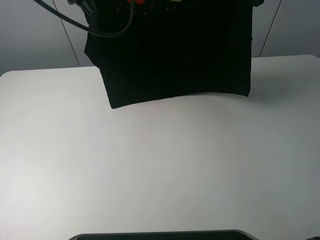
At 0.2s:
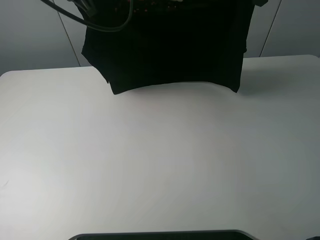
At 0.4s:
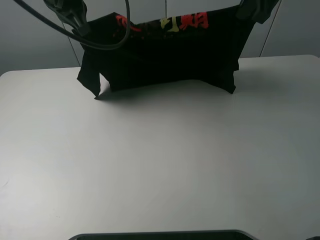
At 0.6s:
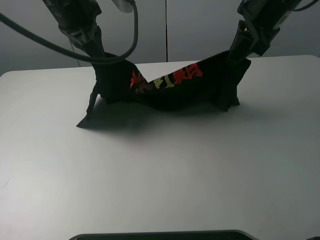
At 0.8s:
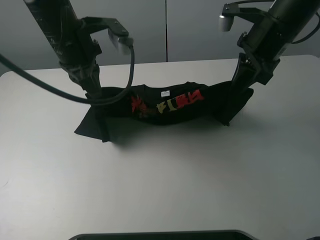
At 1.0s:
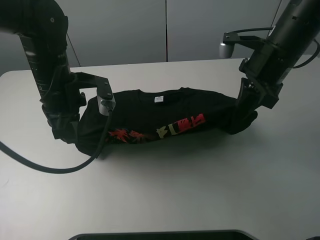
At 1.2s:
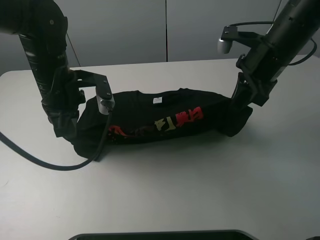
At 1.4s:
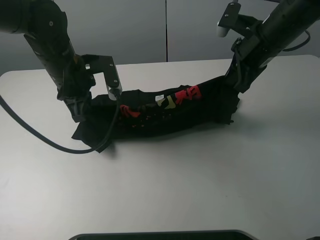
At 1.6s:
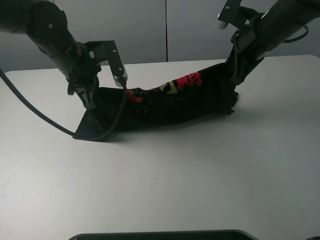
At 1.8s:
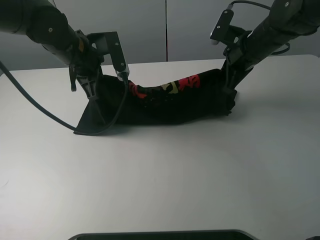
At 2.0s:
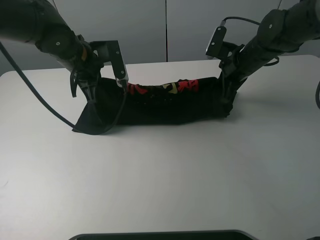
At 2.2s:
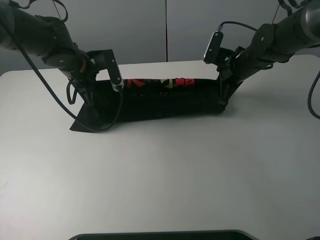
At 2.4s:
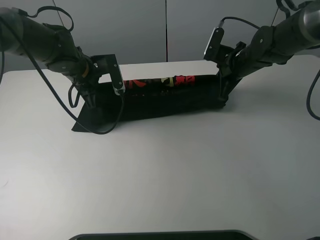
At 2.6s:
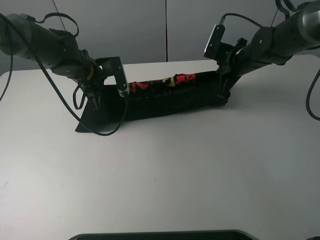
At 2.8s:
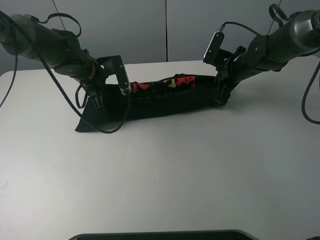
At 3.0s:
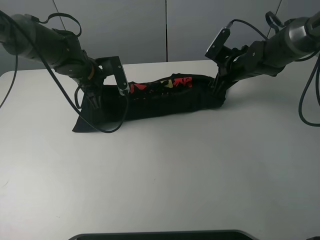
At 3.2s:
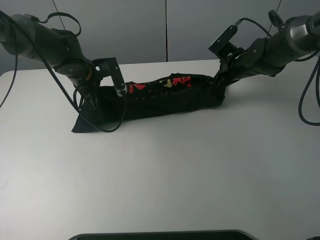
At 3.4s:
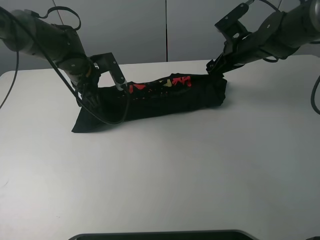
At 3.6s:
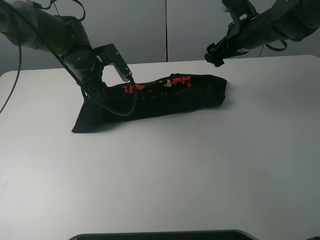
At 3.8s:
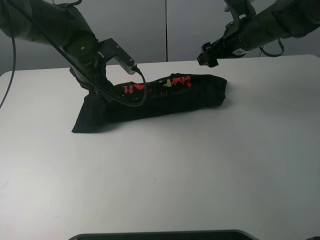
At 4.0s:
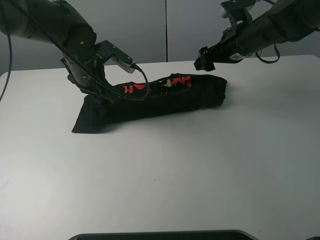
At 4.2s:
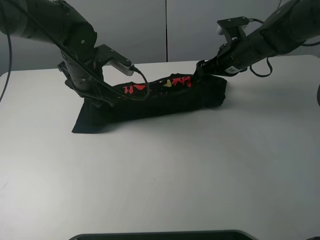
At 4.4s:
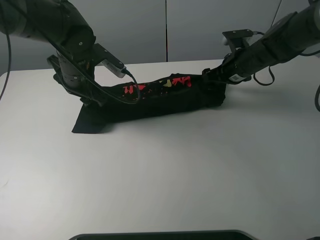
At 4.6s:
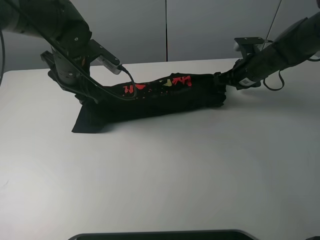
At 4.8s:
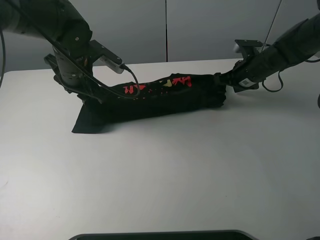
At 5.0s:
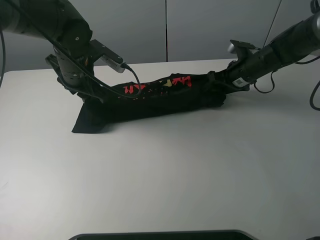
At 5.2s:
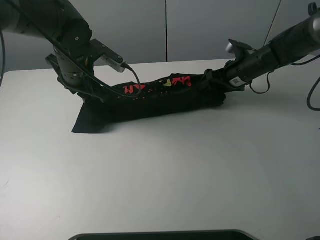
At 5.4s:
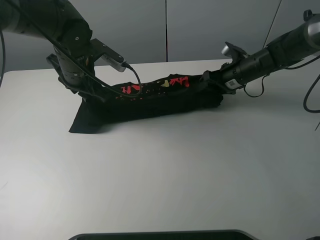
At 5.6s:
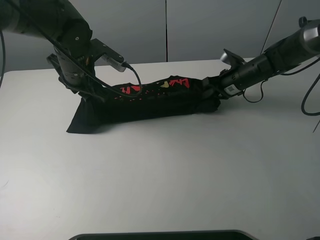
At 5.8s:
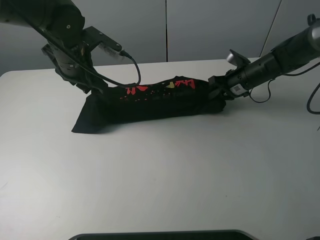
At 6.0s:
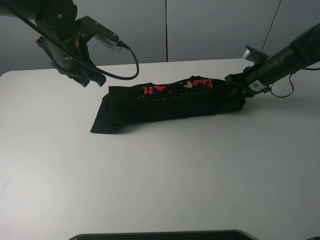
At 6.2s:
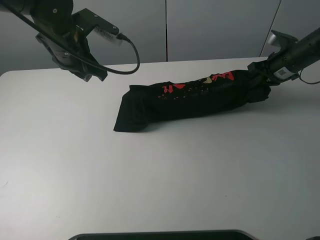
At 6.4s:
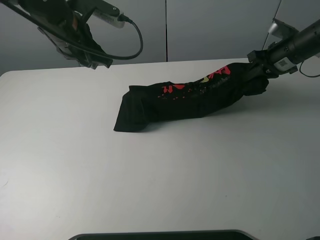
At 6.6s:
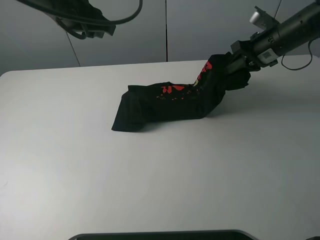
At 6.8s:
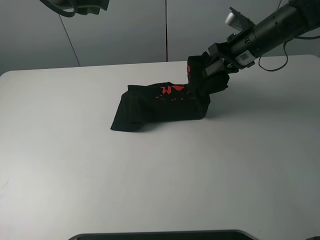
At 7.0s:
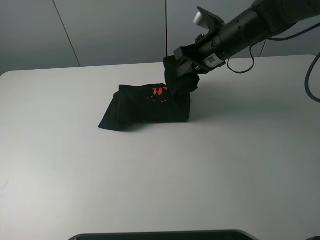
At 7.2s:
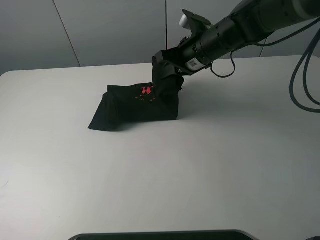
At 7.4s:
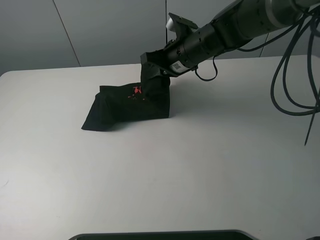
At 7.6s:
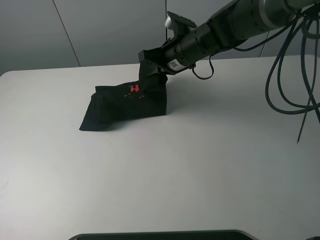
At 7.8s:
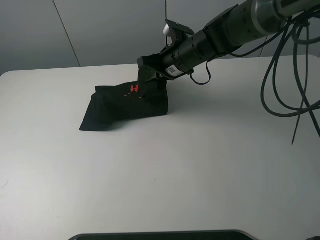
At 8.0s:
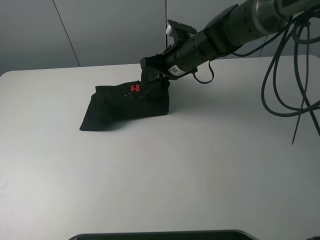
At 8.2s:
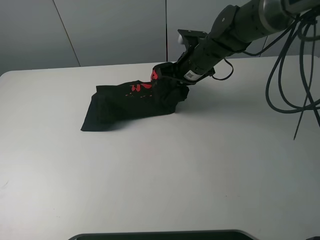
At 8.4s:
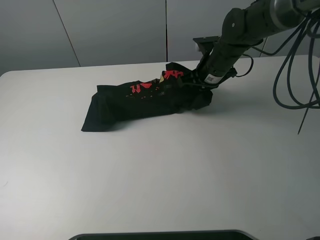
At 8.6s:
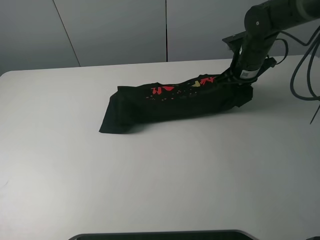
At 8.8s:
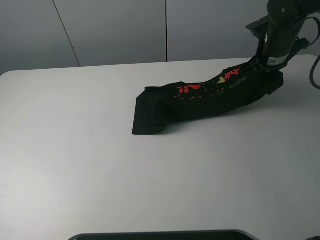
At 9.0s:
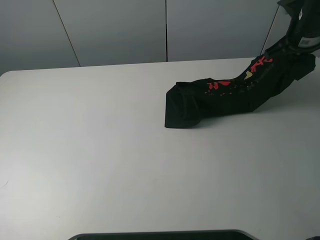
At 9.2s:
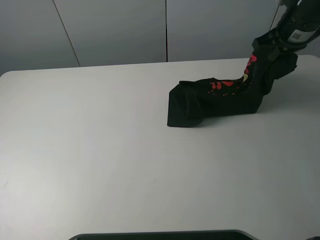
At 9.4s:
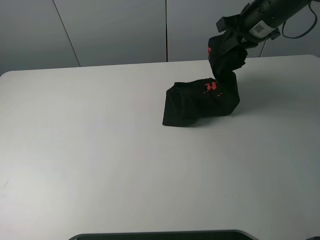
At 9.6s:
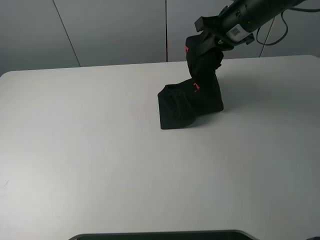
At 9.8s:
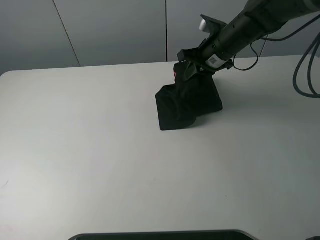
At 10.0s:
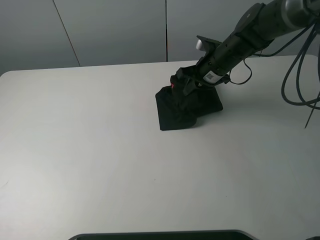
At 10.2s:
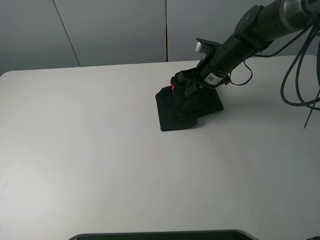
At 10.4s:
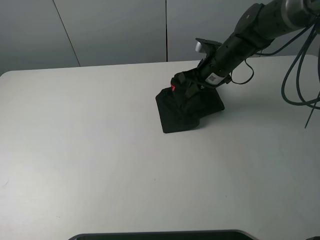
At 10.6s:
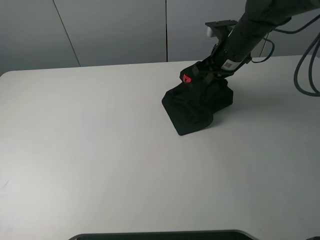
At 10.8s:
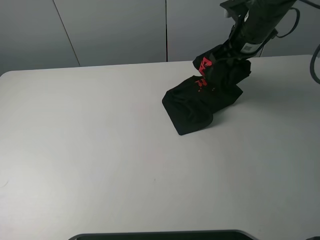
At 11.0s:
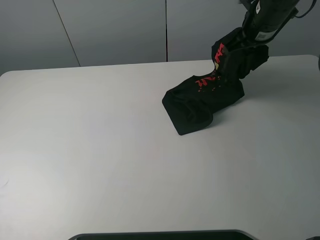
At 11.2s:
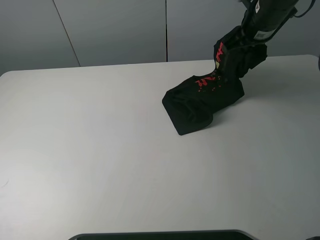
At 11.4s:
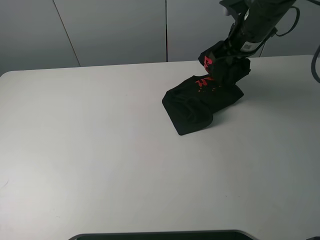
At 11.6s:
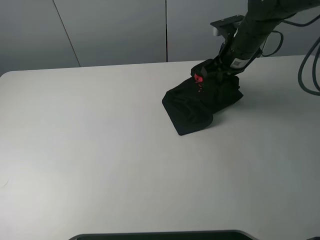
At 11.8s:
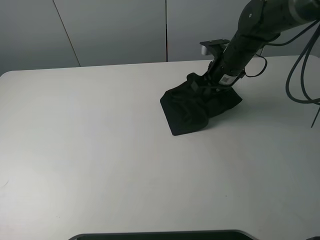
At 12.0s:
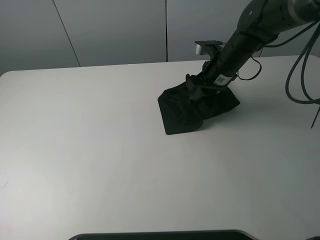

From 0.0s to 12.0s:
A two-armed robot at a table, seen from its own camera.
Task of the whole recording: fold the clothes on the table.
Step, from 0.0s to 3.4s: Fold the black T-shirt downward with the left gripper.
Step, from 3.8s to 6.0s: Grasp the black T-shirt with the right gripper.
From 0.0s to 1.6s: Both grippers travel together downward, roughly 15 cm.
From 1.6s to 3.0s: The right gripper goes about 15 cm downward and forward, and opens. Meanwhile the left gripper goes roughly 10 cm downward and forward.
From 3.0s to 4.4s: The left gripper moves about 5 cm, and opens up. Meanwhile the right gripper goes upward and returns, roughly 10 cm each way.
From 4.4s to 6.0s: The left gripper goes about 5 cm upward. The right gripper heads to the right, covering roughly 5 cm, and closes its fingers.
From 6.0s to 7.6s: The right gripper moves to the left, about 20 cm. Meanwhile the left gripper heads upward, covering approximately 15 cm.
From 7.6s to 9.0s: The right gripper goes about 25 cm to the right.
From 9.0s to 10.4s: The right gripper travels to the left and downward by approximately 20 cm.
From 10.4s to 12.0s: The right gripper reaches approximately 10 cm upward, then returns, and opens up.

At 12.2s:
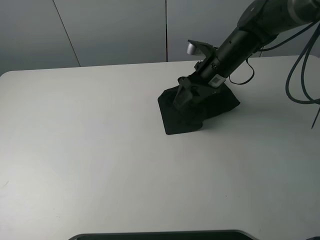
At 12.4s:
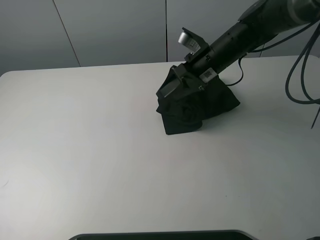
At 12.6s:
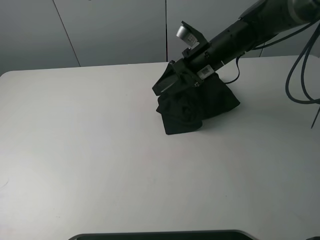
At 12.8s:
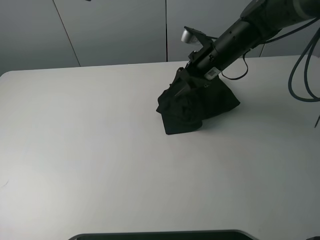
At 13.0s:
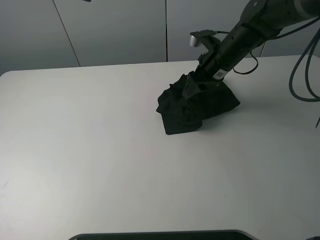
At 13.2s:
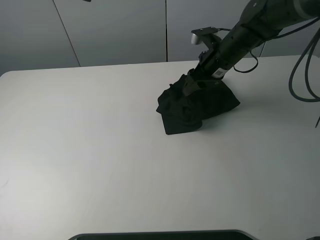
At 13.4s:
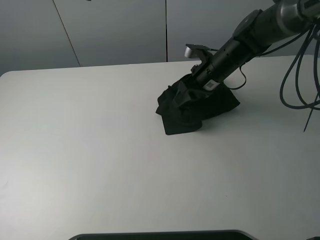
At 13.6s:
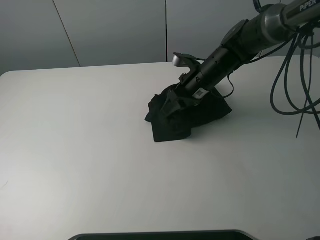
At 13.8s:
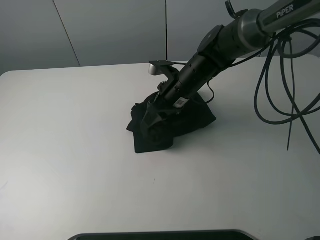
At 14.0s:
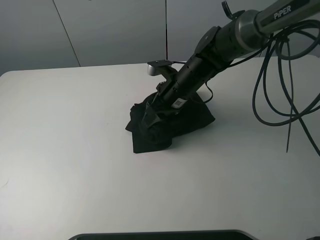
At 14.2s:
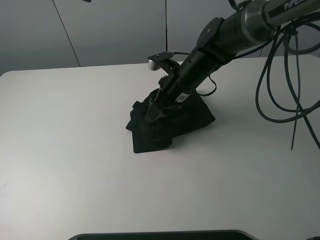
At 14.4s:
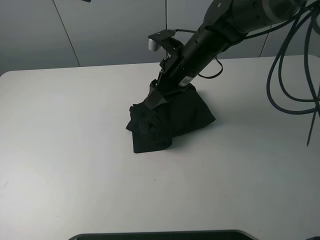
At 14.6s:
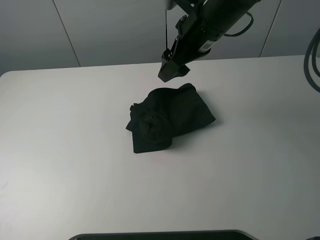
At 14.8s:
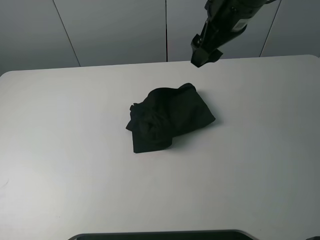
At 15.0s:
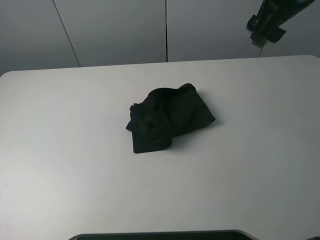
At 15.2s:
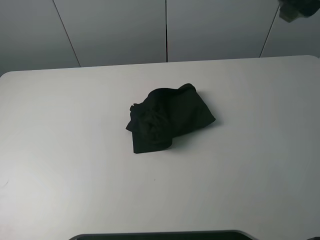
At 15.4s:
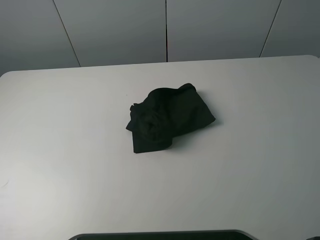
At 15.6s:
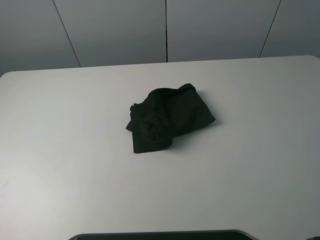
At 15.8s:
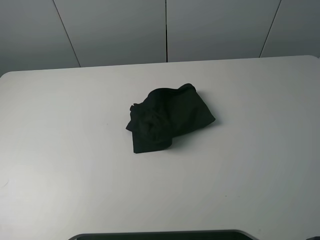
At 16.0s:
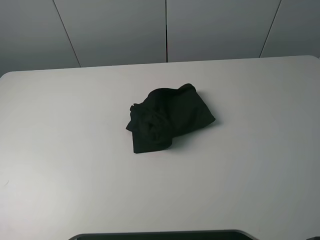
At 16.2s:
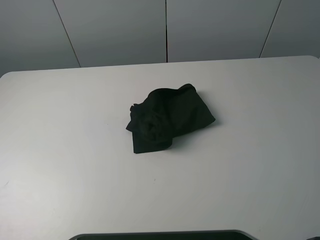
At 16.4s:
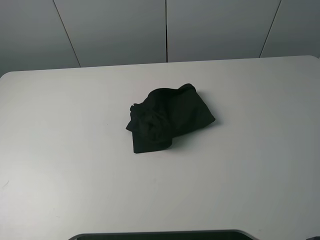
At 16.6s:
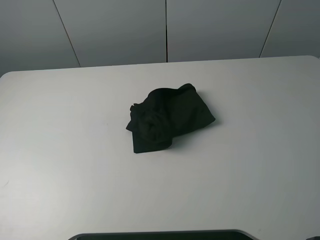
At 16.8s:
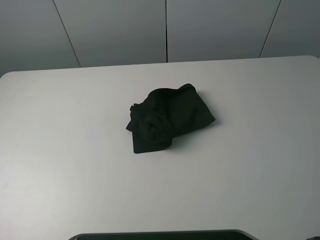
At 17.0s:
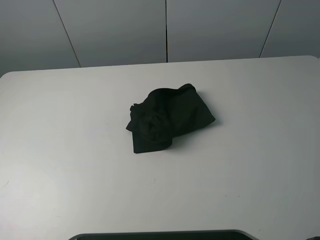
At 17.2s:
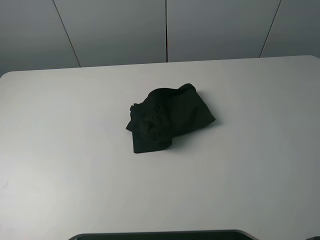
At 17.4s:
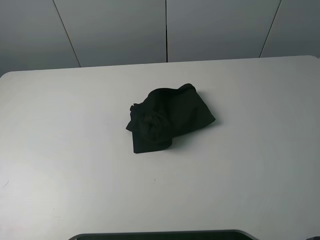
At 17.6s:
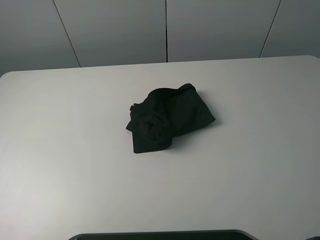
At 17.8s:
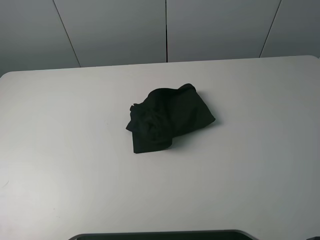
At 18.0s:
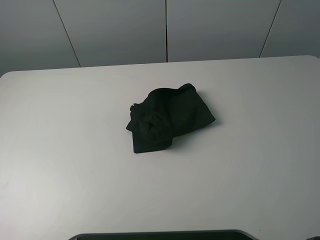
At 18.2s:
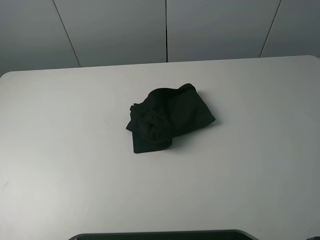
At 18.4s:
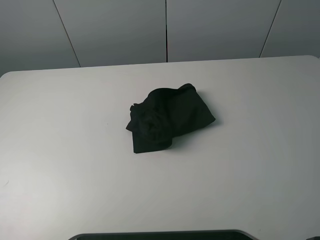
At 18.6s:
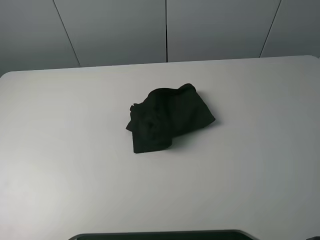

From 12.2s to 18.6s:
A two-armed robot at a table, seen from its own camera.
Task of the whole recording: fold the clothes on the table.
From 12.2s to 13.8s: The right gripper moves to the left, some 10 cm.
From 13.8s to 15.4s: The right gripper heads upward, to the right and backward, covering roughly 40 cm. The left gripper is displaced to the left, backward and upward by about 25 cm, and opens its fingers.
